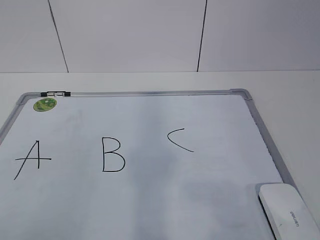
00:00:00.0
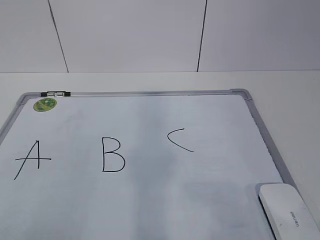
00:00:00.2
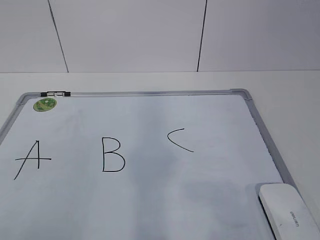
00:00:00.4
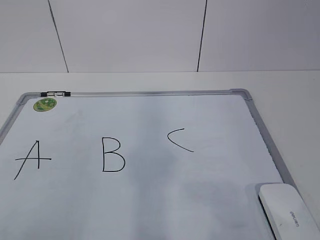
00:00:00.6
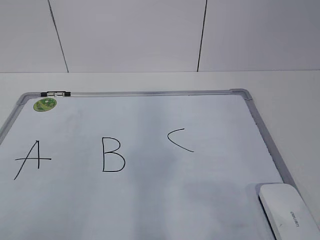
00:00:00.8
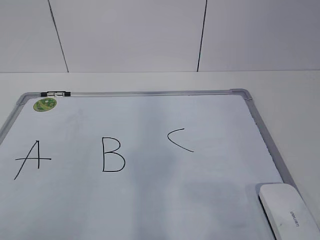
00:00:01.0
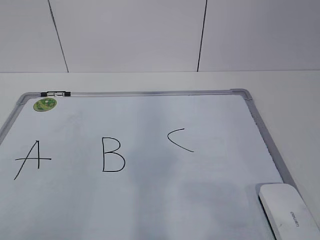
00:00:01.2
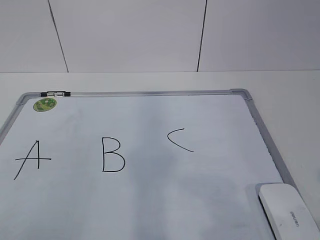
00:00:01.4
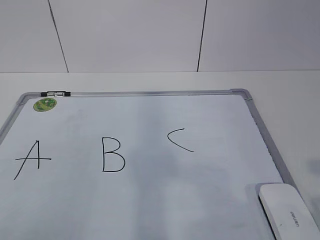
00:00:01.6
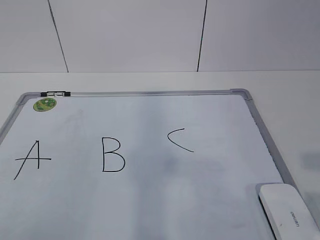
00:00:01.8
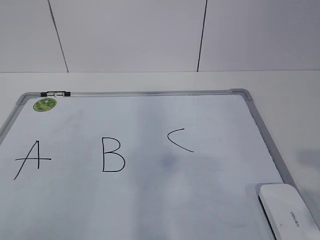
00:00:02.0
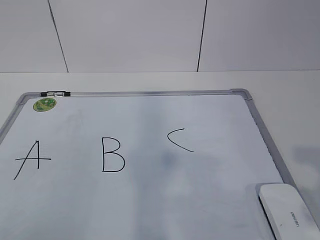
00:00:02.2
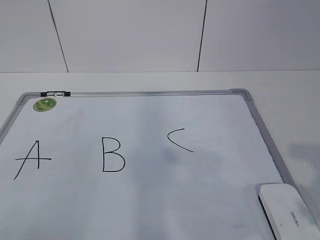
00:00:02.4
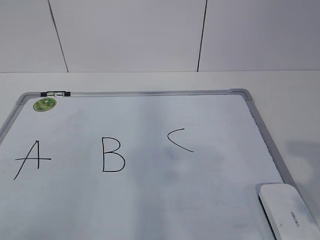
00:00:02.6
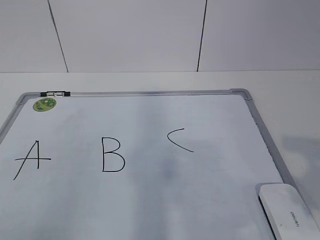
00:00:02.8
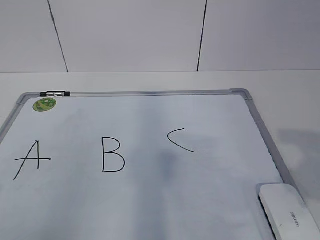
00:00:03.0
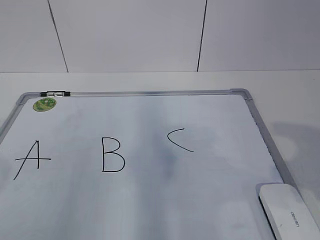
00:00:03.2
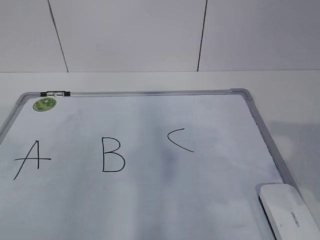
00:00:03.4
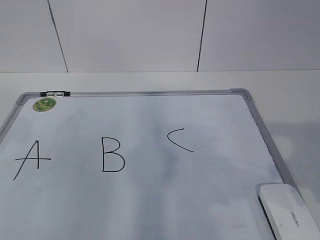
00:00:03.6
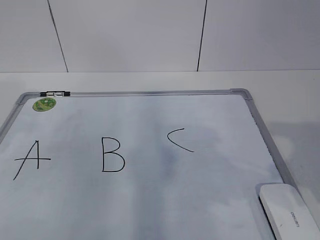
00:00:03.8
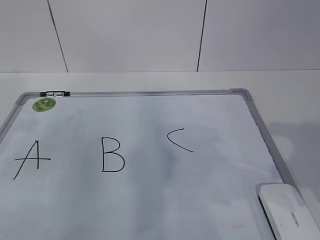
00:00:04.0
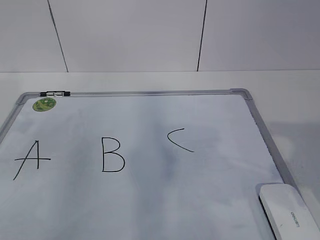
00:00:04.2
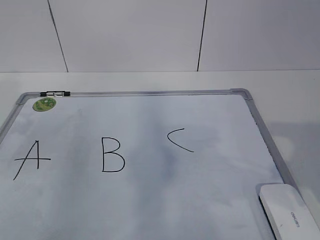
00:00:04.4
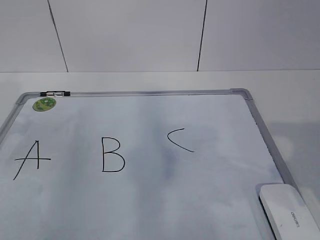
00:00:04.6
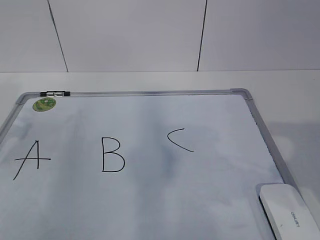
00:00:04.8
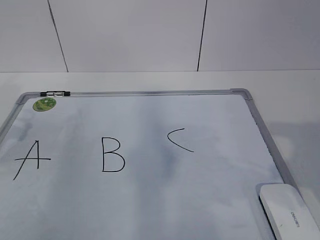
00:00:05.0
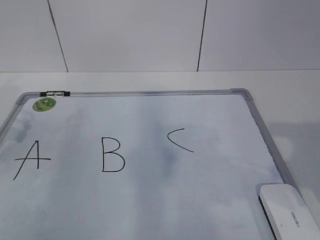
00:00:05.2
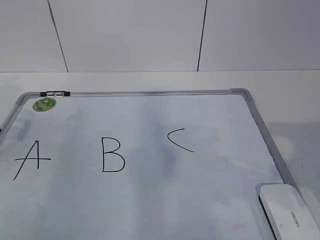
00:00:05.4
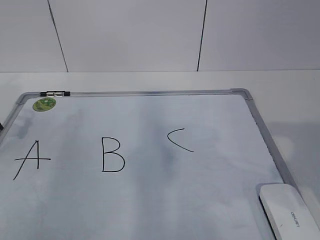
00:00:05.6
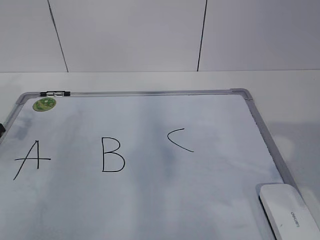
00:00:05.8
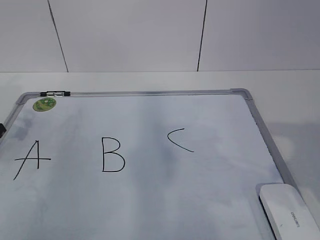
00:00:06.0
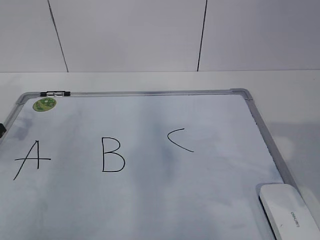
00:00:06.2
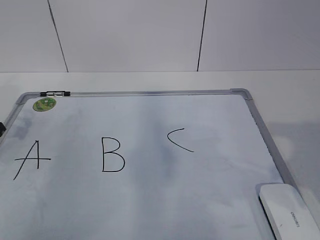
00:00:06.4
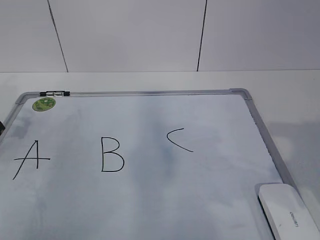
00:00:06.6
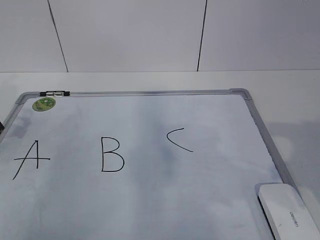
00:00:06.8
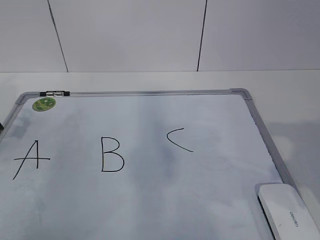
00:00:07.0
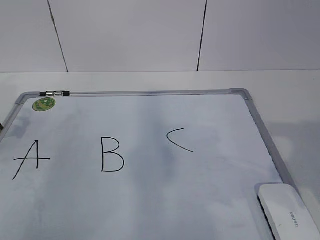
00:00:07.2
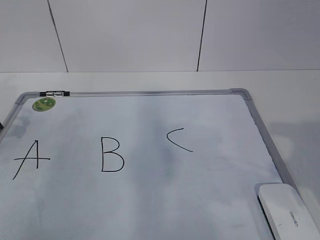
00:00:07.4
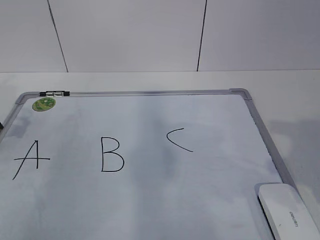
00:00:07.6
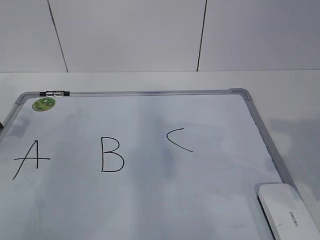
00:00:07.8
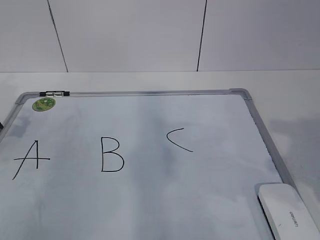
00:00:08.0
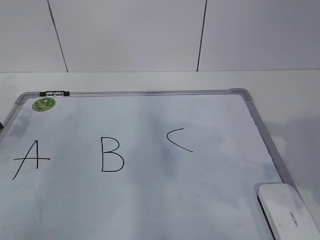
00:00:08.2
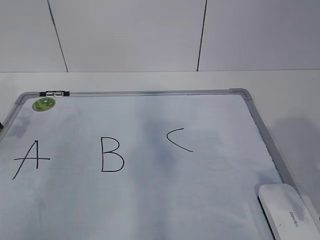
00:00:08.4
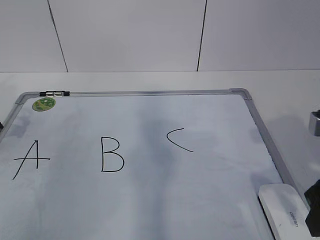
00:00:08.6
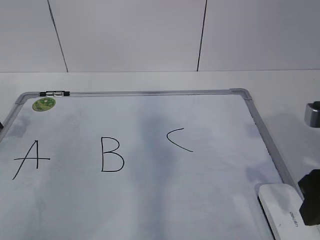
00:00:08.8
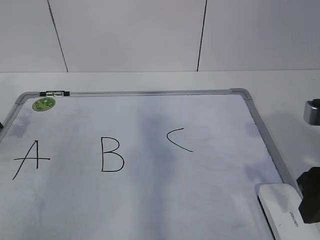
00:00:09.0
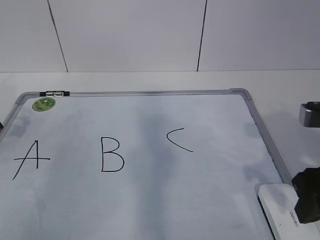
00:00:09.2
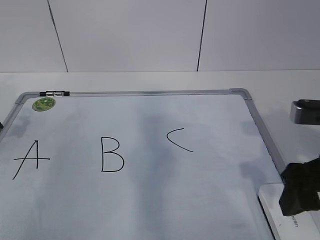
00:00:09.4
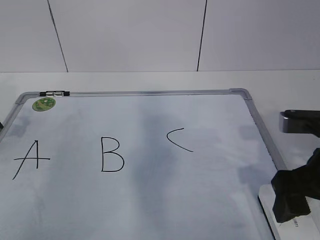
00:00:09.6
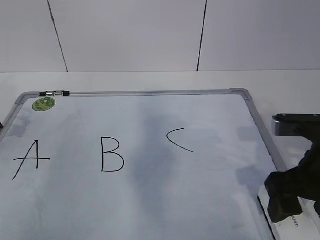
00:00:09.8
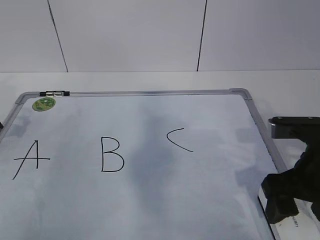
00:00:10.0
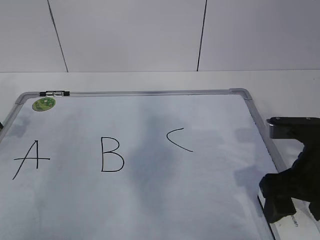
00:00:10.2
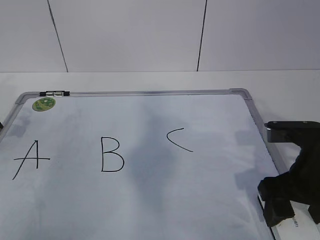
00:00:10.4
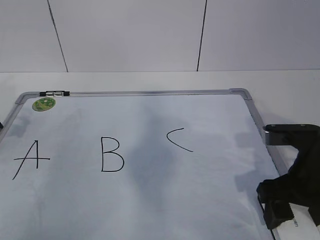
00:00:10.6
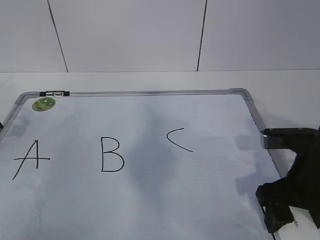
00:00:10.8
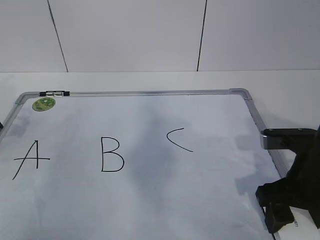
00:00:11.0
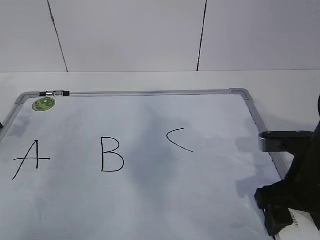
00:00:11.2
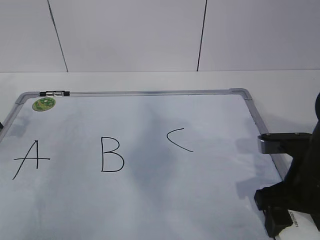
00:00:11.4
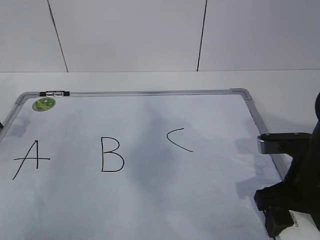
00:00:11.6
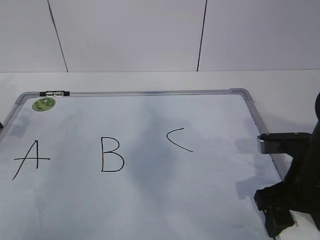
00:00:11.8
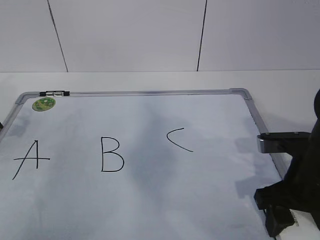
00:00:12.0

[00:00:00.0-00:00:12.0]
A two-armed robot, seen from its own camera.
Task of the whole recording: pick up the eraser on the blackboard and erase the letter "B".
Step, 00:00:05.6 to 00:00:09.8: Grab the eraser with your right hand.
00:00:07.6 to 00:00:09.0: The right gripper shifts by some 5 cm.
00:00:09.0 to 00:00:10.4: The right gripper shifts about 5 cm downward, and opens its fingers.
00:00:10.4 to 00:00:12.0: The right gripper closes.

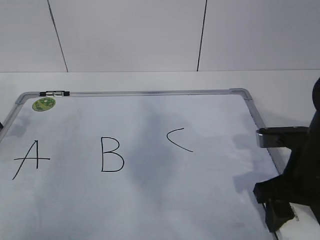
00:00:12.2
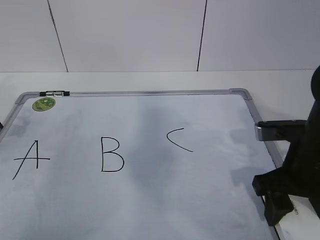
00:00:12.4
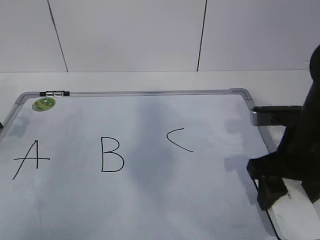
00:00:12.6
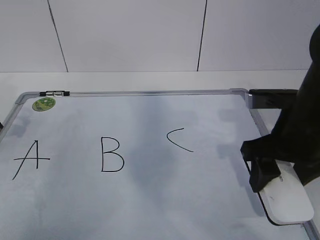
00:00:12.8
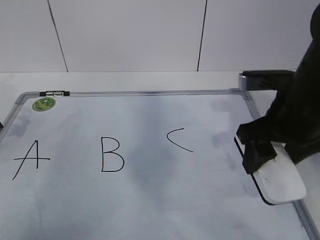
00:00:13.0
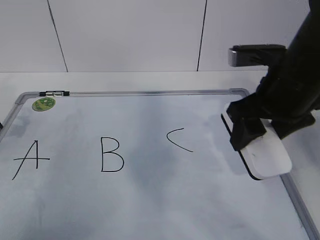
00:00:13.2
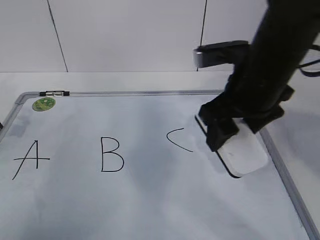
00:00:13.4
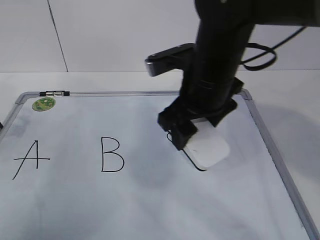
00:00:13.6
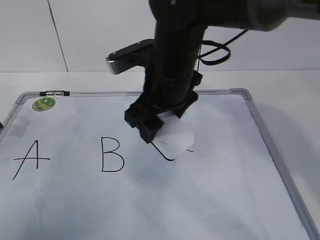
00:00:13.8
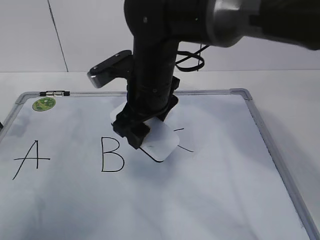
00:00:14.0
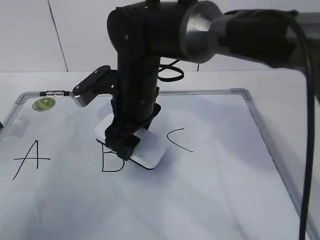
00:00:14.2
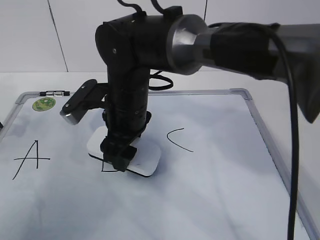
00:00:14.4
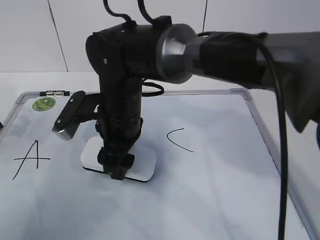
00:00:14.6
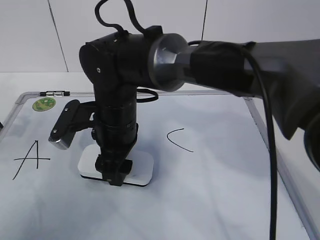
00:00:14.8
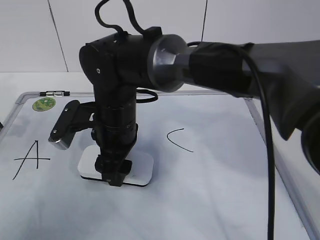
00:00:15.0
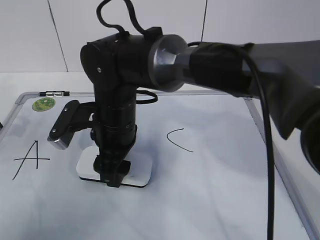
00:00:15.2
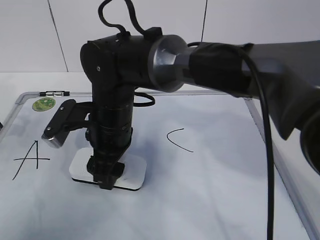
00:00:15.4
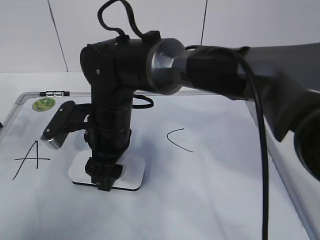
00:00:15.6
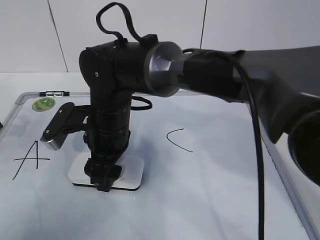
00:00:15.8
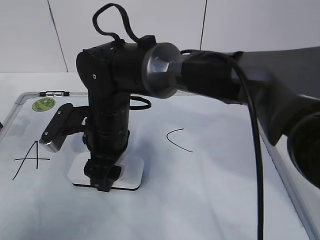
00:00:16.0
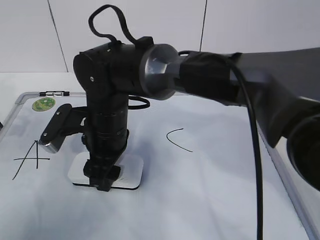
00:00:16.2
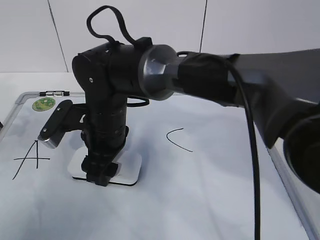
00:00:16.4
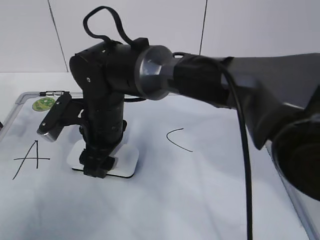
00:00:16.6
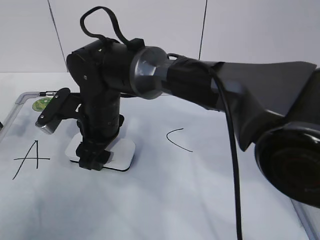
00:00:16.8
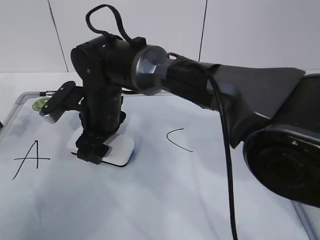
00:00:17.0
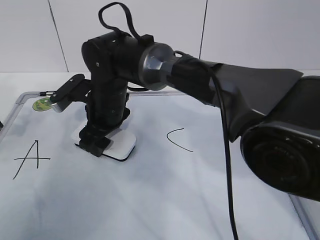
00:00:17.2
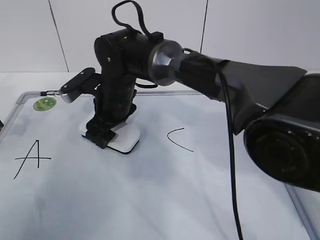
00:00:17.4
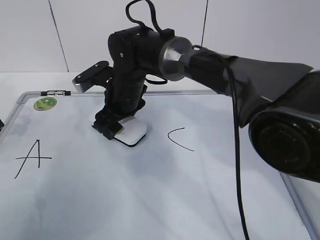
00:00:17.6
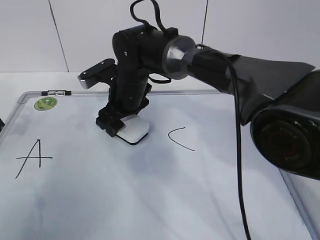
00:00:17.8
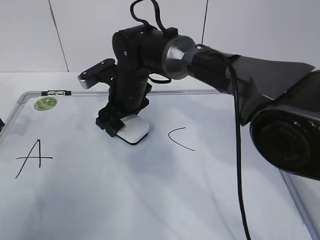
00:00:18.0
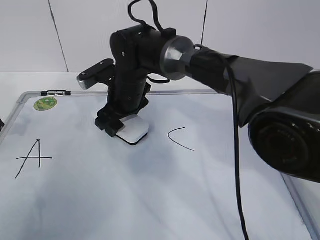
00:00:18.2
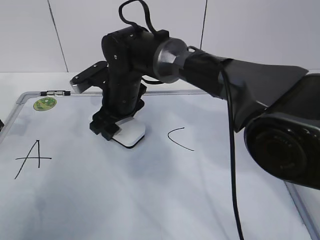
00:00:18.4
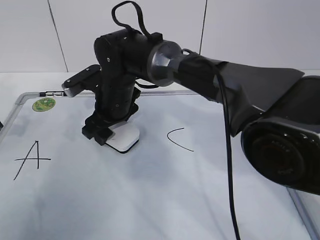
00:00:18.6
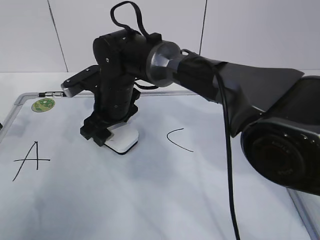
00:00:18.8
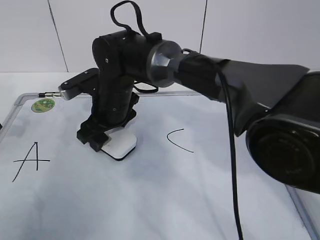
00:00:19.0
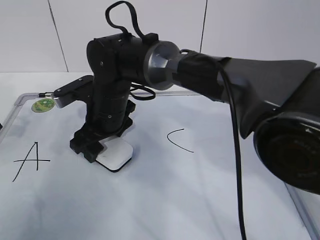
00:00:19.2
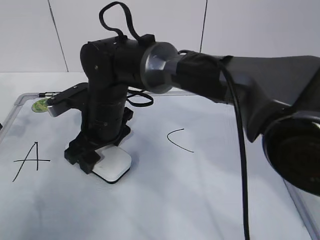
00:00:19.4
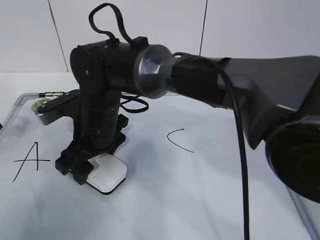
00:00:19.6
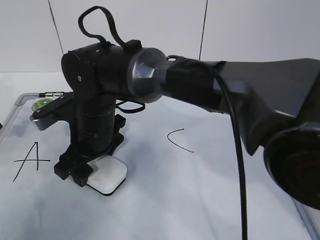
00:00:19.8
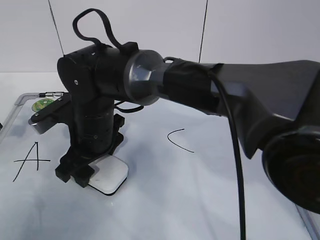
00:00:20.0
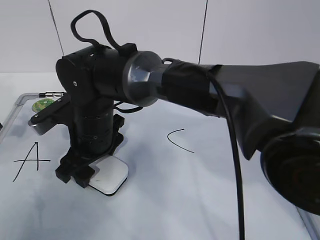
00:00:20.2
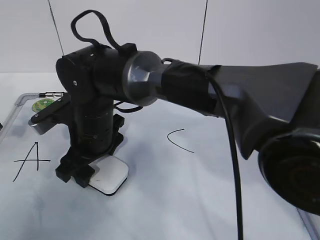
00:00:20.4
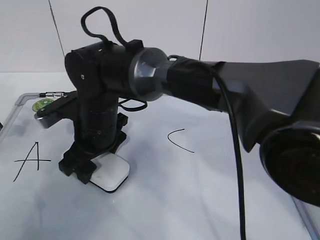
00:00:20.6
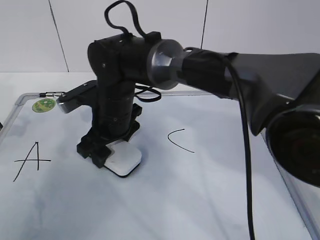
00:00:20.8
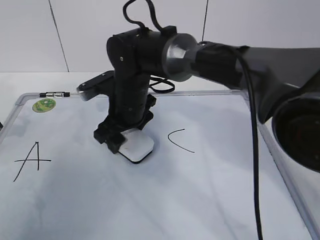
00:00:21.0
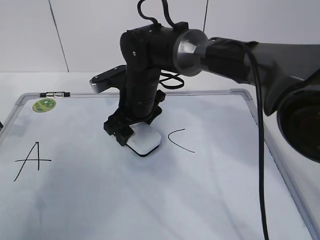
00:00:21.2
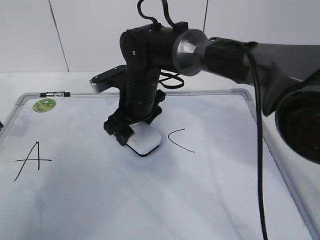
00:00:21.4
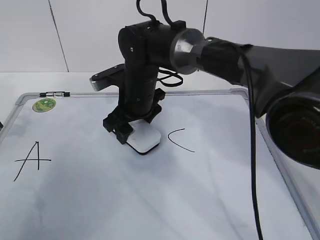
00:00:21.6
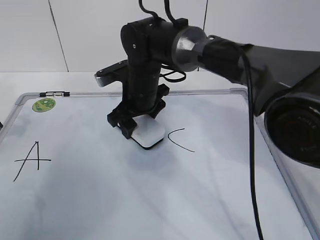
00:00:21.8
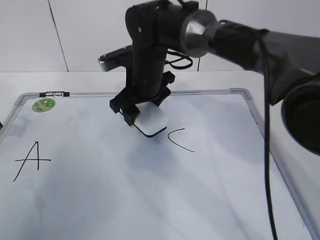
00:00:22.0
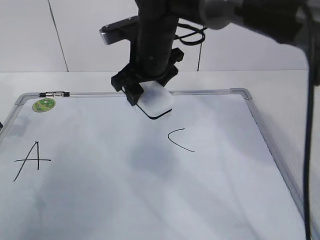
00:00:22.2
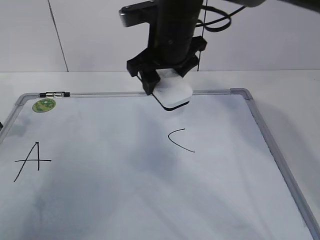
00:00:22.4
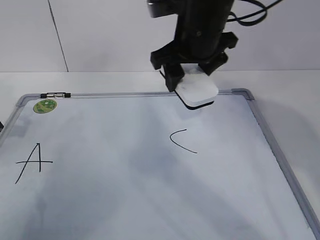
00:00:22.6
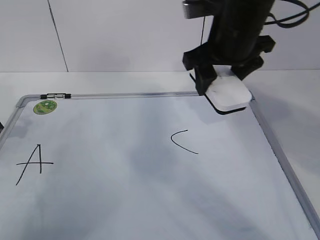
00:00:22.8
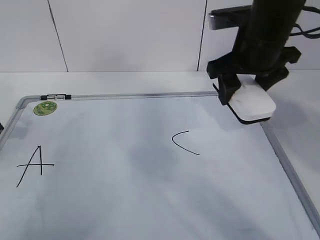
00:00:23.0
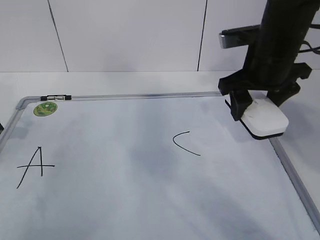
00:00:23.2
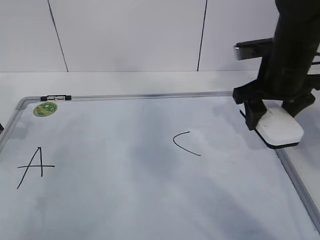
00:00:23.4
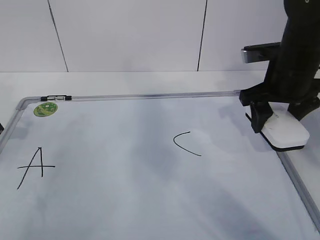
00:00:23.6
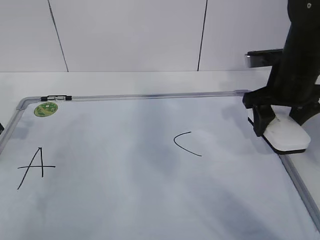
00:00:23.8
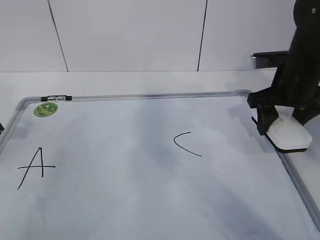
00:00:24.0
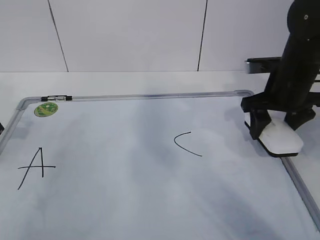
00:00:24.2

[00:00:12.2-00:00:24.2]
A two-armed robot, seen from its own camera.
Task of the whole recording: pick up the eraser on the blackboard and erase the letter "B".
Step, 00:00:12.2 to 00:00:18.0: Erase the letter B with your right hand.
Step, 00:00:18.2 to 00:00:22.4: Put down the eraser with your right hand.
00:00:12.2 to 00:00:13.8: The right gripper goes approximately 20 cm to the left, forward and upward.
00:00:13.8 to 00:00:15.2: The right gripper is displaced to the left and downward by approximately 10 cm.
00:00:16.6 to 00:00:18.2: The right gripper is displaced forward by about 10 cm.
00:00:18.2 to 00:00:19.8: The right gripper moves backward and to the left, about 10 cm.
00:00:19.8 to 00:00:21.2: The right gripper is displaced forward and to the right by about 10 cm.
00:00:21.2 to 00:00:22.6: The right gripper is displaced upward and to the right by about 15 cm.
00:00:22.6 to 00:00:24.2: The right gripper goes approximately 20 cm to the right and downward.
